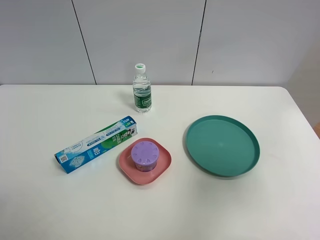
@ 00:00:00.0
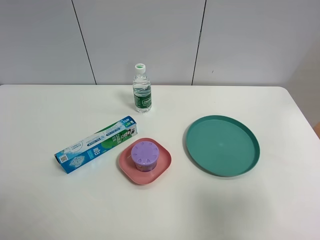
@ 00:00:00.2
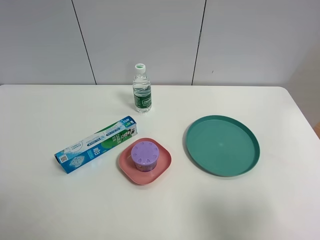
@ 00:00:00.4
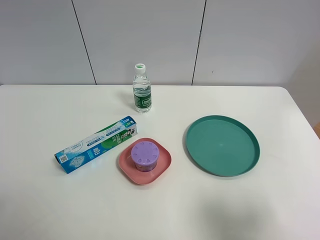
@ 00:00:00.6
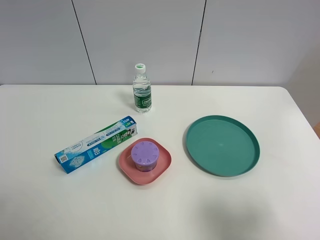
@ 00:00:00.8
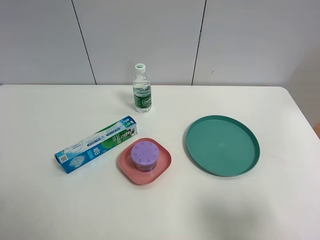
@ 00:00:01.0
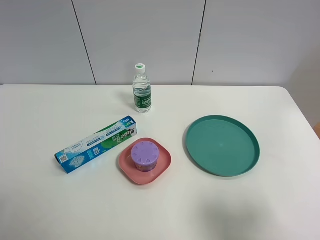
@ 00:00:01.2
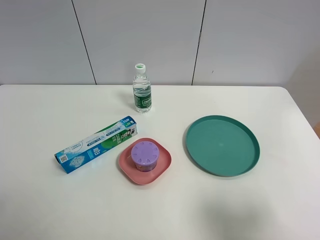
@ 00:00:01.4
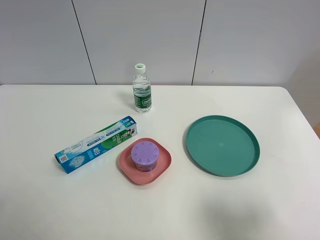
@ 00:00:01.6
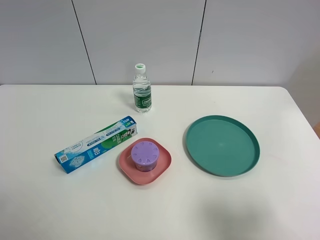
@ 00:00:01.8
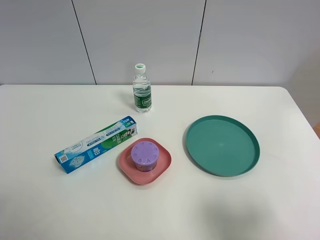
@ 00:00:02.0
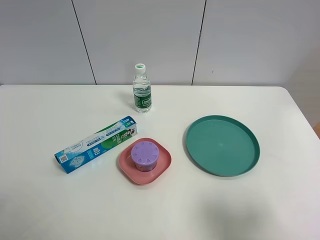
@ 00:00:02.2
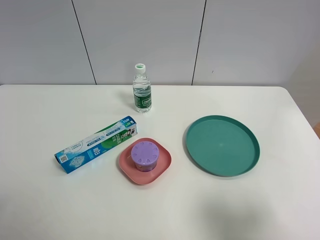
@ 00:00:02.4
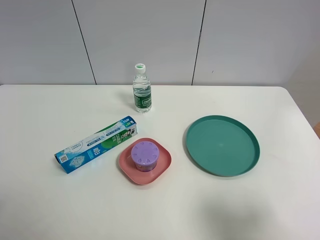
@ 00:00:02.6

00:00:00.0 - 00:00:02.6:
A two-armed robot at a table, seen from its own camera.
Task of the whole recording: the gripper move the object.
00:00:00.0 - 00:00:01.2: The right gripper goes roughly 10 cm downward and backward.
00:00:01.2 - 00:00:02.6: Both grippers stay about where they are.
